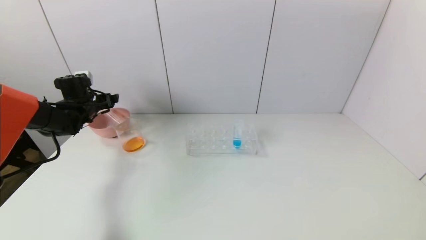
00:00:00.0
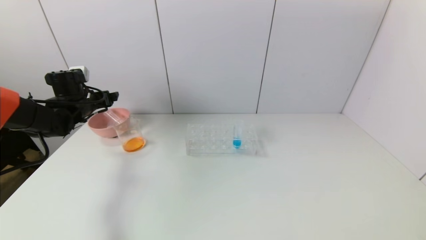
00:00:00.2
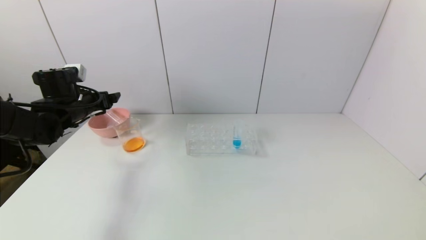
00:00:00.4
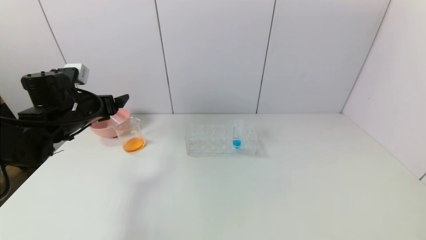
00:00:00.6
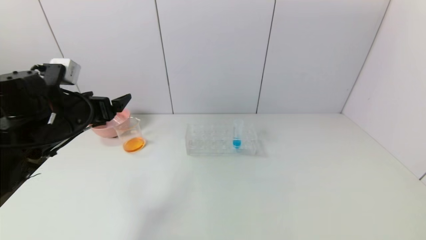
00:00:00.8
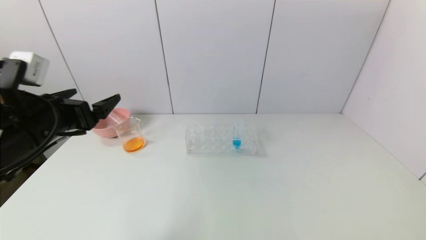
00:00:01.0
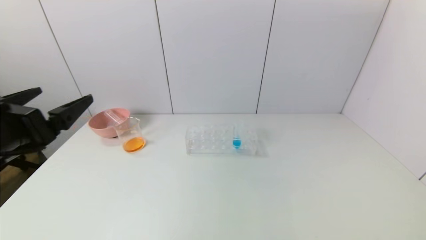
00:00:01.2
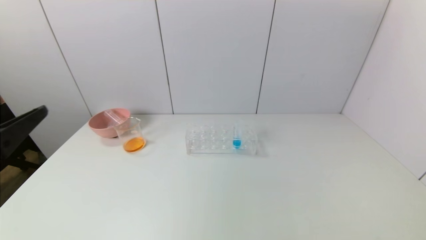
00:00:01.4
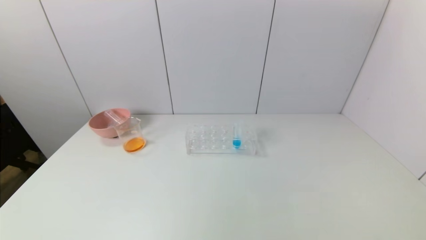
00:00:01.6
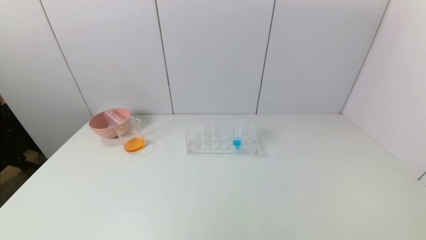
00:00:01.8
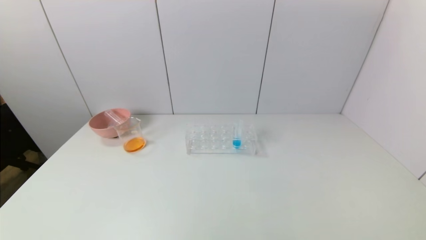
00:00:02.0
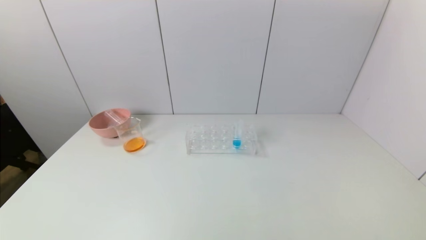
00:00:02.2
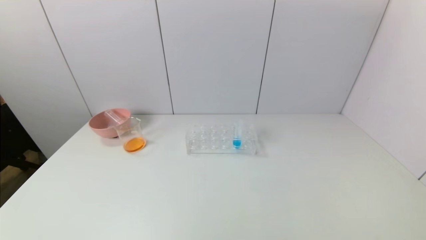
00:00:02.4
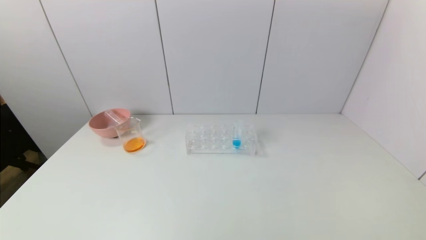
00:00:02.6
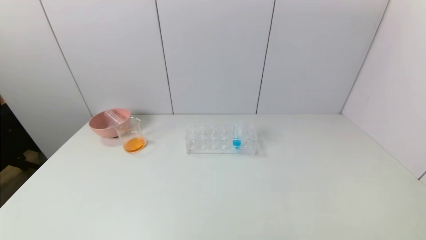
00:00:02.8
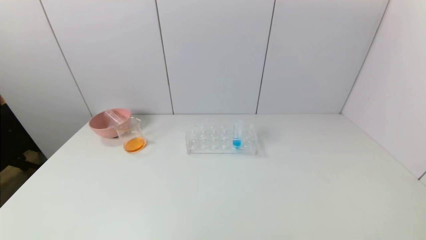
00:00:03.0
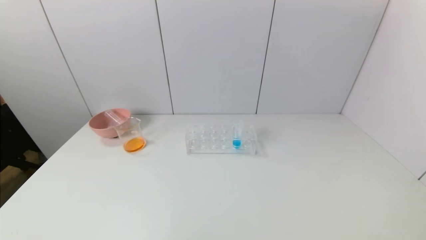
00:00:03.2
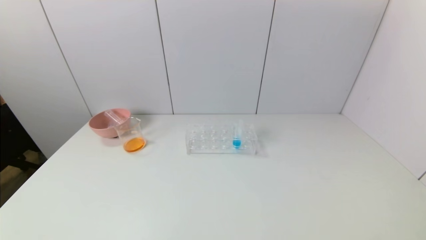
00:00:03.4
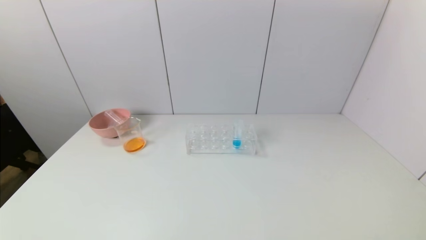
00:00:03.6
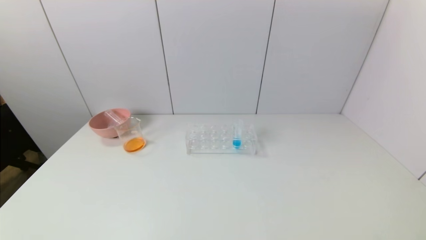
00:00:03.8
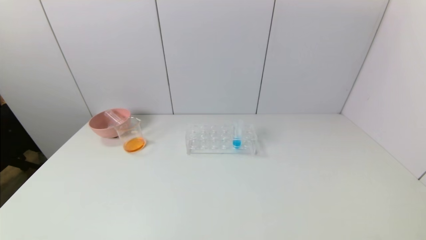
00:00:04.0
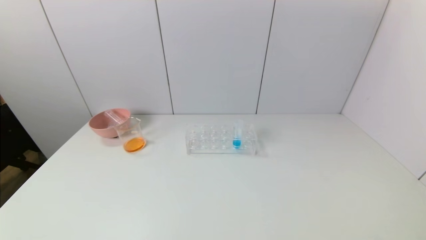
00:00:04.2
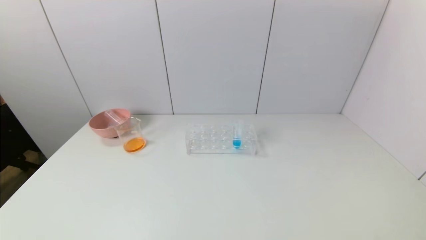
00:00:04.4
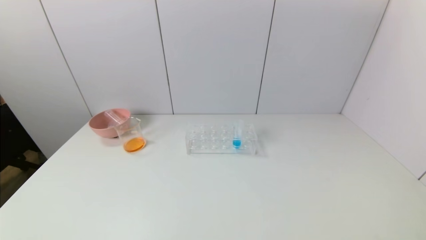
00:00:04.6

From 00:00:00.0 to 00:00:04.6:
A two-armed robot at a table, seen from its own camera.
Task of the whole recording: pick up the test tube with yellow pigment and the test tube with red pigment by grippers and pour them into the beaker.
From 00:00:00.0 to 00:00:01.6: The left gripper travels backward by approximately 40 cm.
